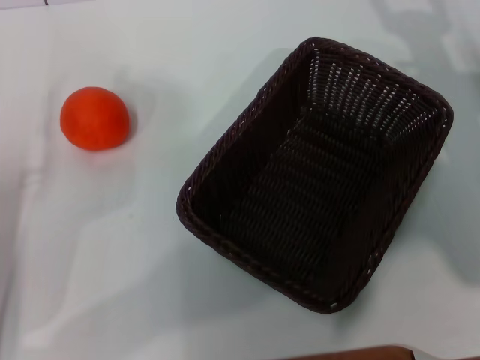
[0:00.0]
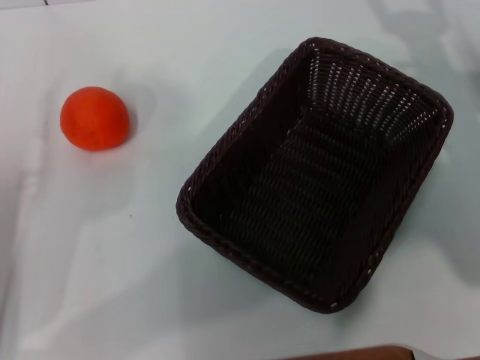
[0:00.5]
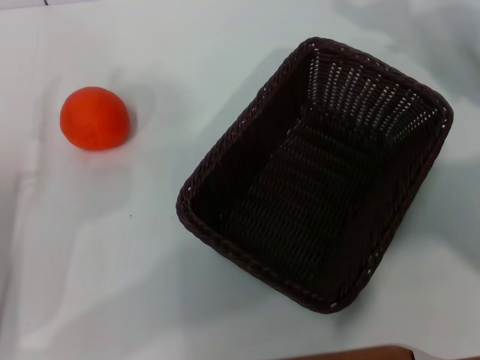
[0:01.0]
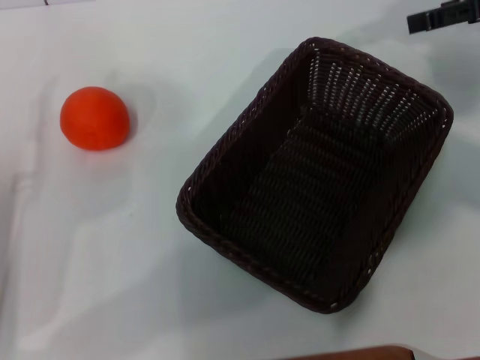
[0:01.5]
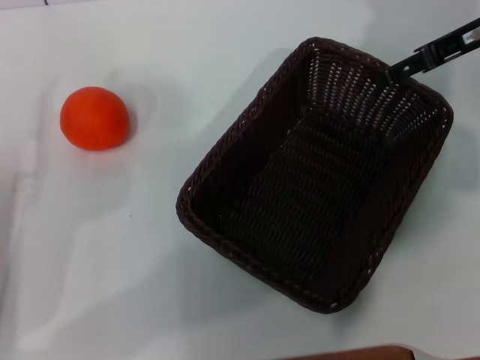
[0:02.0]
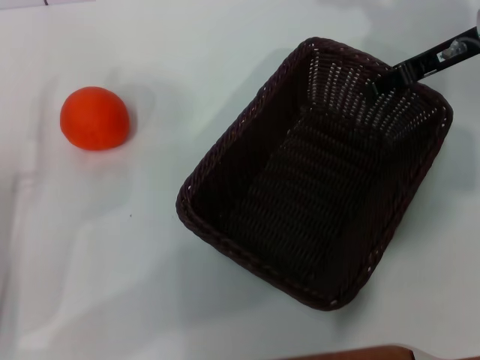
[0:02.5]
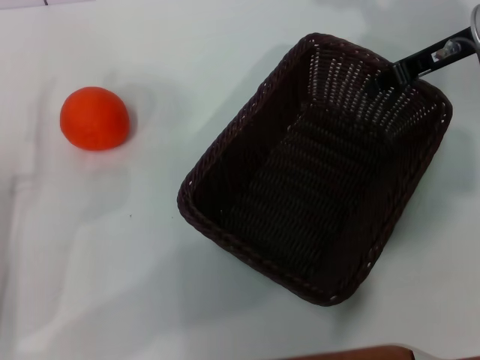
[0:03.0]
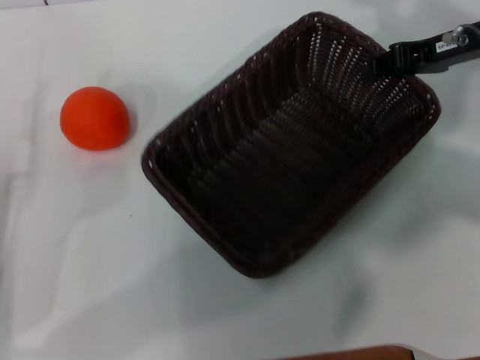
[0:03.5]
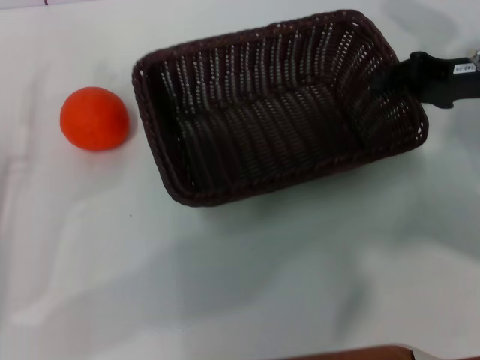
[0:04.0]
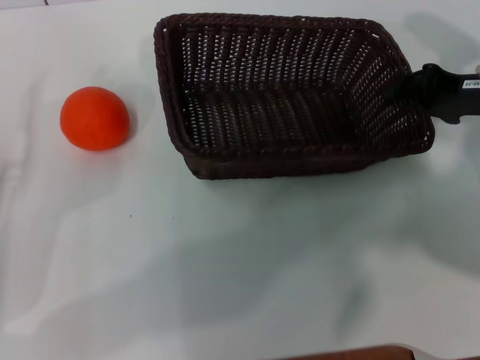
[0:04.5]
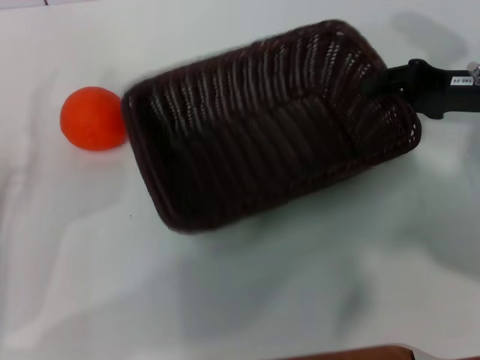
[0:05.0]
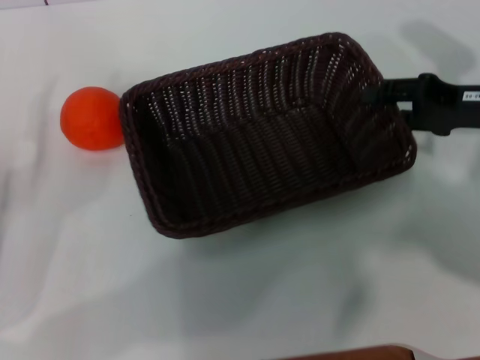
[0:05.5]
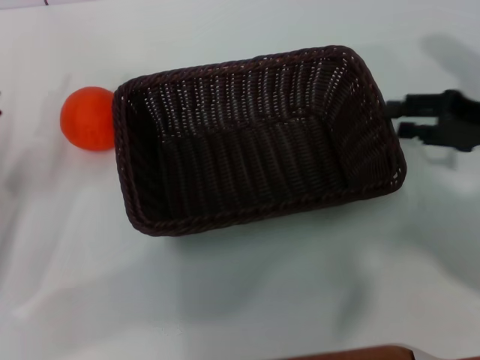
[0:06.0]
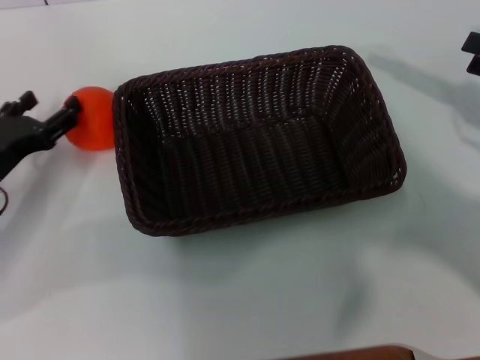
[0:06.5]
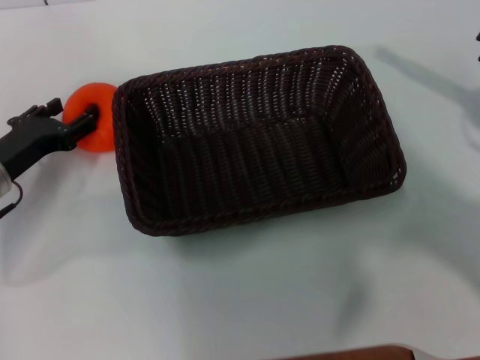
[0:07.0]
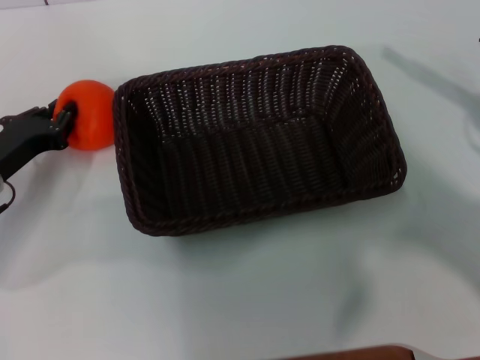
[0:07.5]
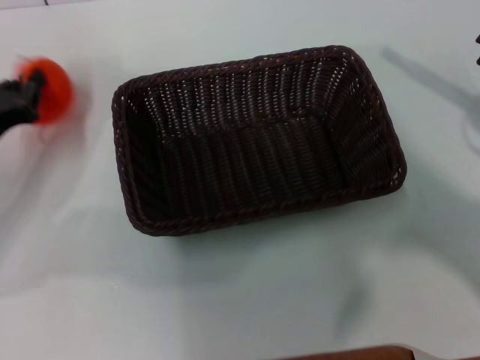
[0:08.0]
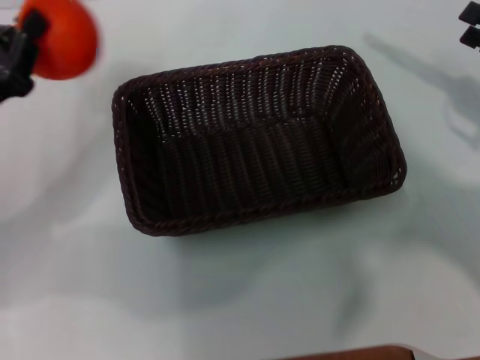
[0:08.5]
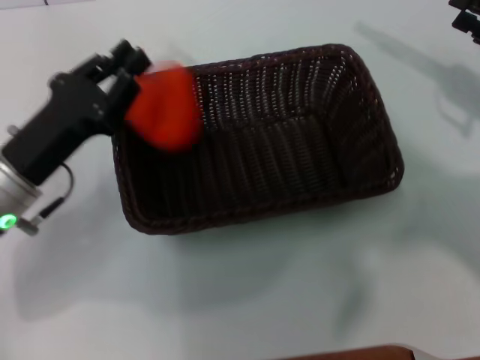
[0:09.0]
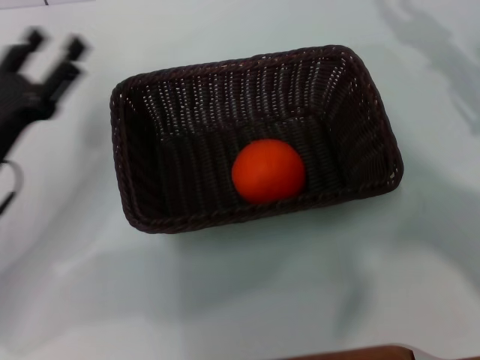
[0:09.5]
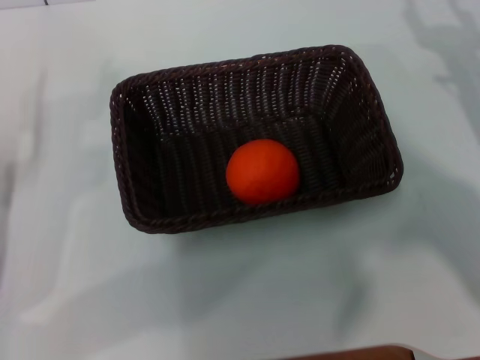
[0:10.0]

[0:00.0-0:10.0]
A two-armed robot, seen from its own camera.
Task of the whole recording: the right gripper pick up the black basket and place it horizontally in the middle of the table, the left gripper pick up the orange and place it into the black basket.
Step, 0:00.0 to 0:03.5: Pick up the dark basket with the right gripper.
Step, 0:04.0 to 0:06.0: Place the dark basket in the center of view with the right gripper.
Step, 0:06.5 to 0:08.0: Pick up the orange with the left gripper.
Step, 0:08.5 to 0:09.0: Place the orange into the dark basket with the left gripper.
0:00.0 to 0:02.0: The right gripper travels upward and forward by approximately 15 cm.
0:02.0 to 0:04.0: The right gripper heads downward, covering some 5 cm, and closes up.
0:04.0 to 0:06.0: The right gripper travels backward by some 5 cm, and opens its fingers.
0:06.0 to 0:08.0: The left gripper travels forward by some 5 cm, and closes its fingers. Meanwhile the right gripper is displaced to the right by approximately 5 cm.
0:08.0 to 0:10.0: The right gripper changes place by about 5 cm. Meanwhile the left gripper heads backward, covering roughly 5 cm, travels to the right and back again, roughly 10 cm each way, and opens.

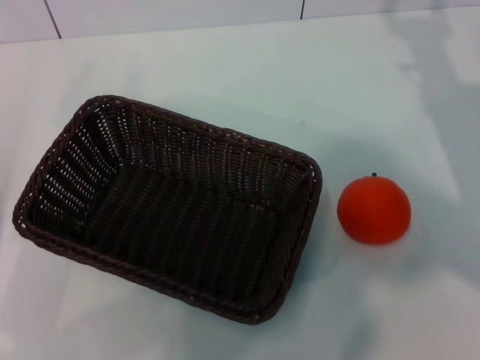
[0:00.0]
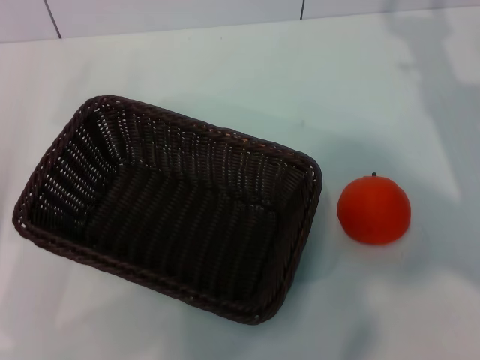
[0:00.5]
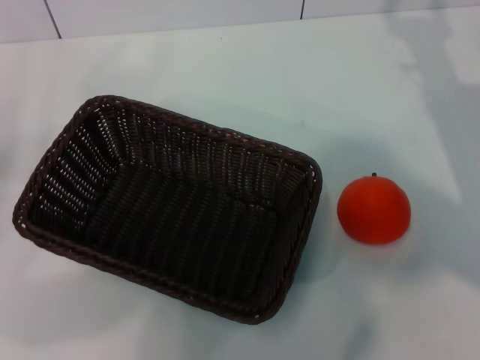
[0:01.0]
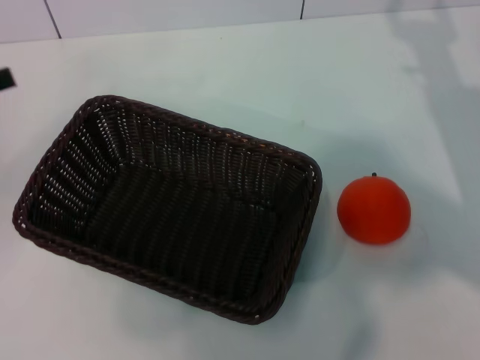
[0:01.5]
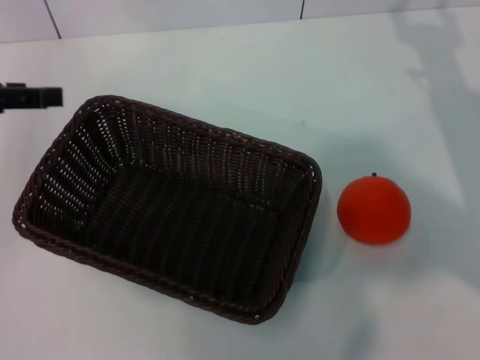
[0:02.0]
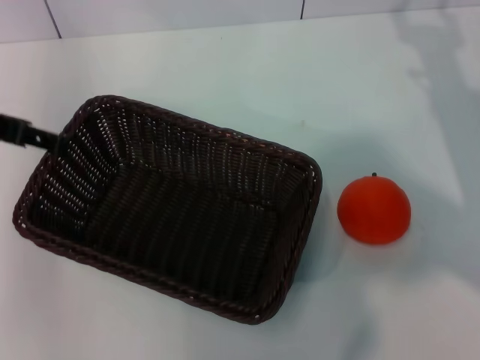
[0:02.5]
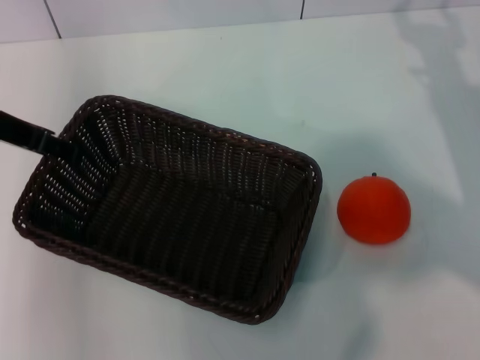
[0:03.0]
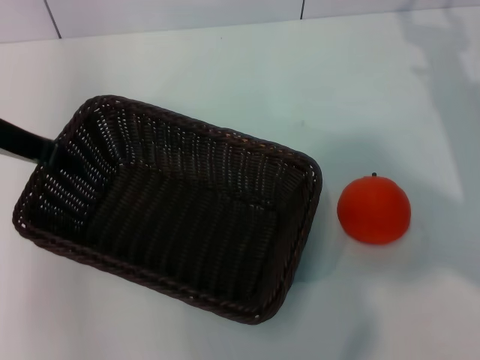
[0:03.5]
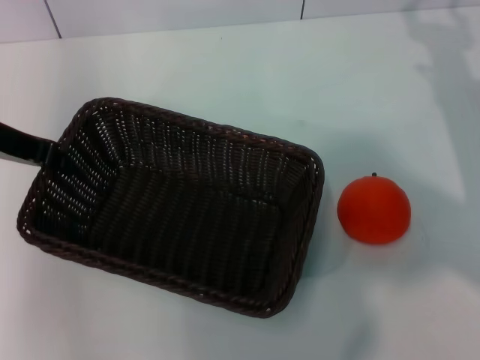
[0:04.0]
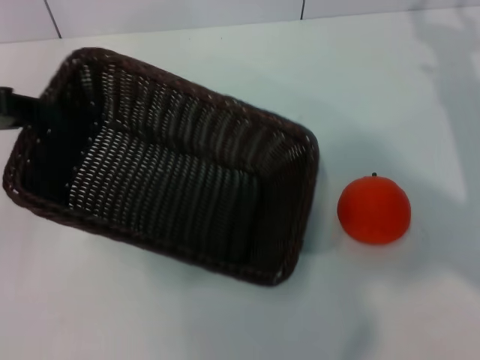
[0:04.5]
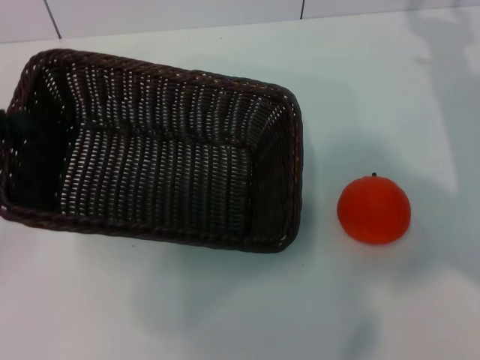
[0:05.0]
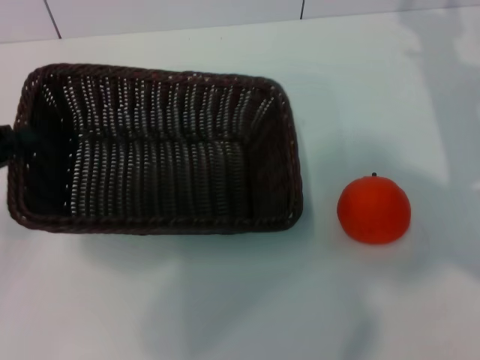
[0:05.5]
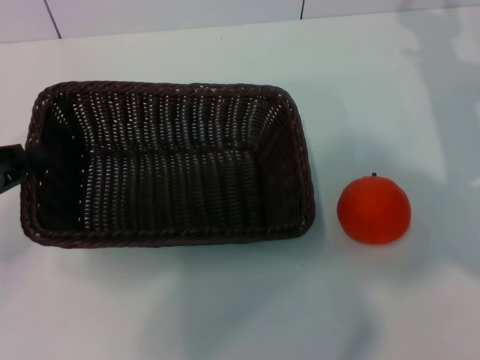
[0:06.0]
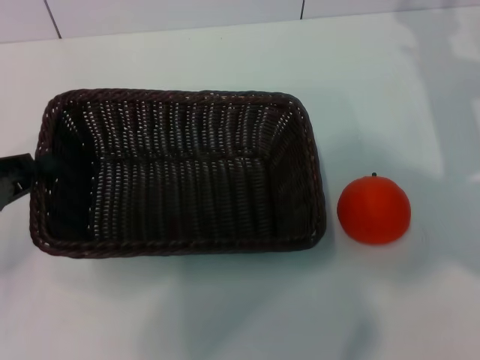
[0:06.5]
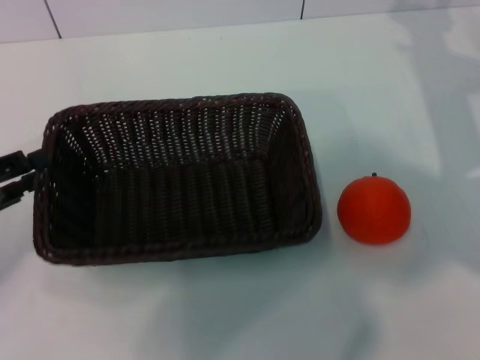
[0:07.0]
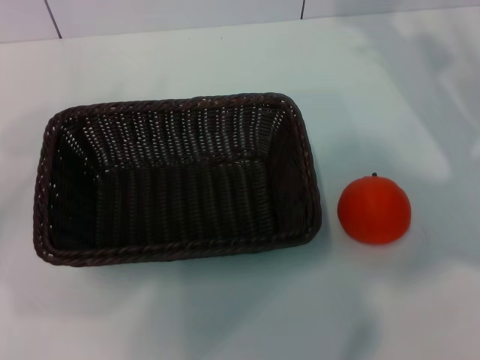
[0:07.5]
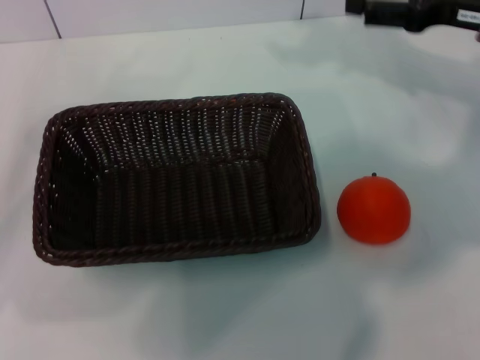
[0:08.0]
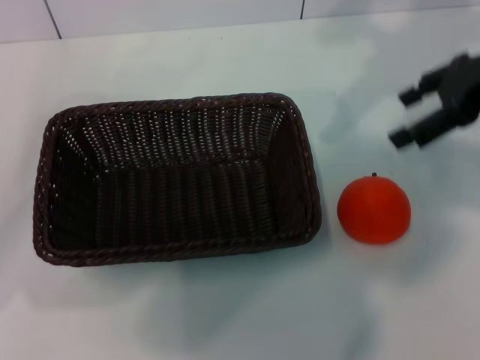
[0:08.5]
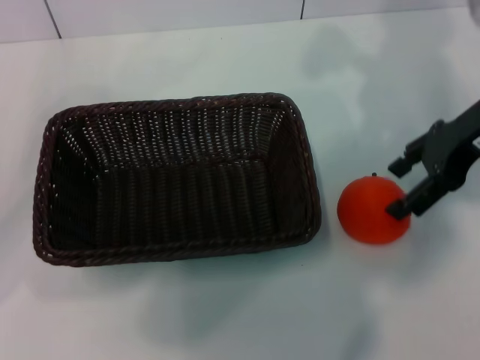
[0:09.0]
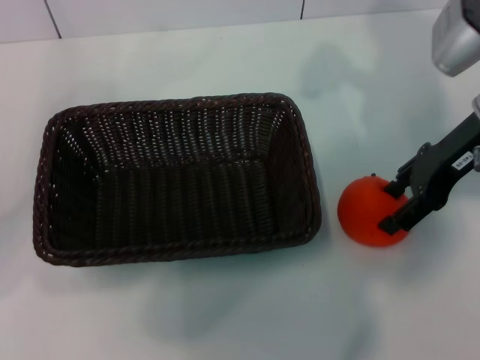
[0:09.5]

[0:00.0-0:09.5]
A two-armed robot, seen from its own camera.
Task of the whole recording: the left gripper pick up the black basket and place it horizontally in the middle of the table, the right gripper pick up the orange and place it into the black basket.
Step, 0:00.0 to 0:04.0: Pick up the dark basket with the left gripper.
Step, 0:04.5 to 0:06.5: Place the dark basket in the center of view with the left gripper.
0:00.0 to 0:02.0: The left gripper is displaced upward and forward by approximately 20 cm.
0:02.0 to 0:04.0: The left gripper heads to the right, covering some 5 cm, and closes.
0:04.0 to 0:05.5: The left gripper heads to the left, backward and downward, covering roughly 15 cm.
0:05.5 to 0:07.5: The left gripper opens its fingers.

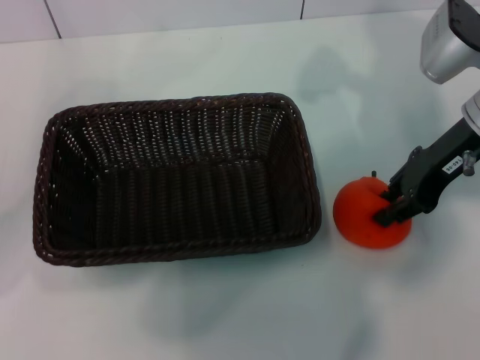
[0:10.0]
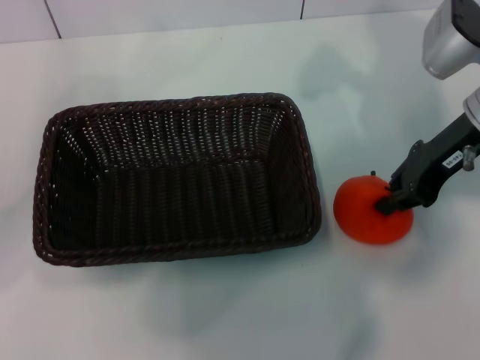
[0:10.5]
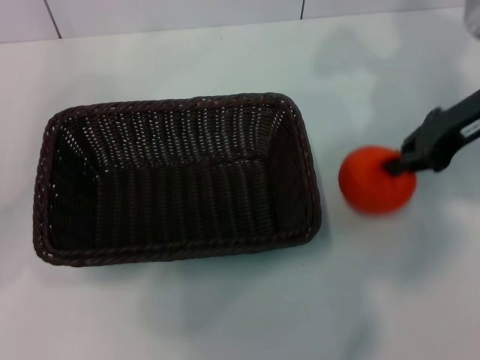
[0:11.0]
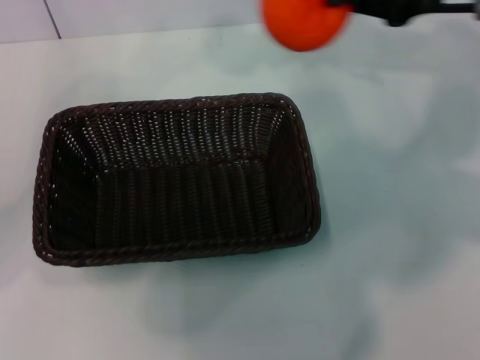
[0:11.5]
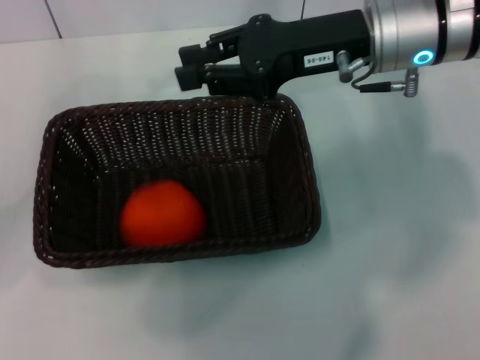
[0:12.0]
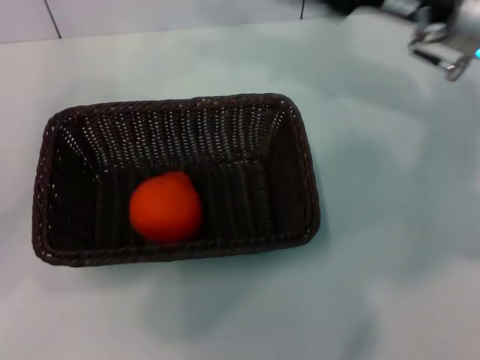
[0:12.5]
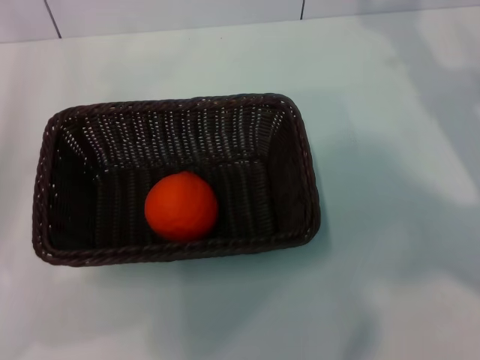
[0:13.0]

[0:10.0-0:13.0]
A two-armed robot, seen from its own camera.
Task of the whole recording: the left gripper pick up the black basket and place it horizontally in the middle of the table, the right gripper pick up the orange and place it into the black basket.
Step, 0:11.0 to 0:12.0: Place the orange into the dark basket with the right gripper.
0:10.0 to 0:11.5: The right gripper shifts some 5 cm upward, and closes.
0:11.5 to 0:13.0: The right gripper heads downward and to the right, covering approximately 10 cm, and opens its fingers.

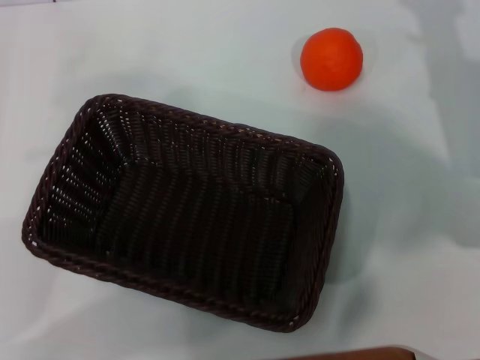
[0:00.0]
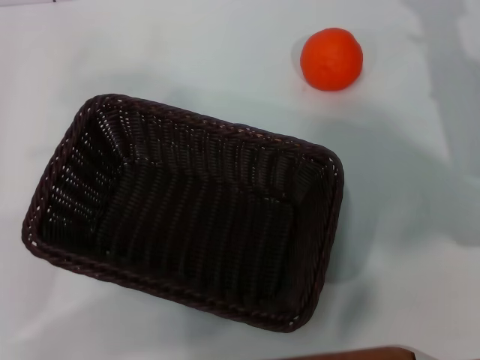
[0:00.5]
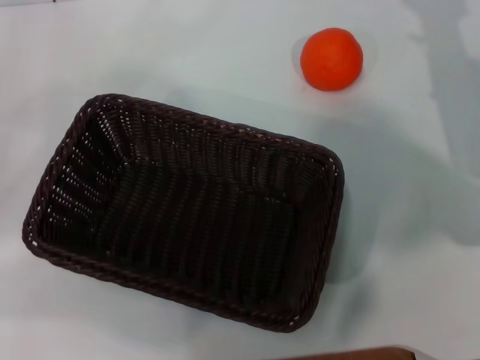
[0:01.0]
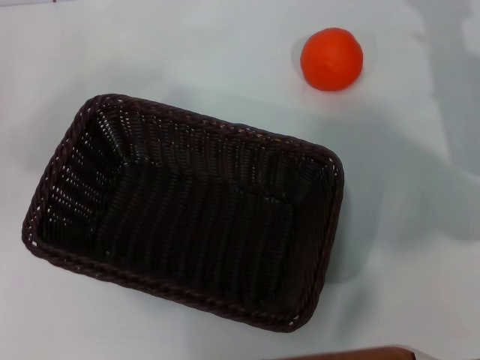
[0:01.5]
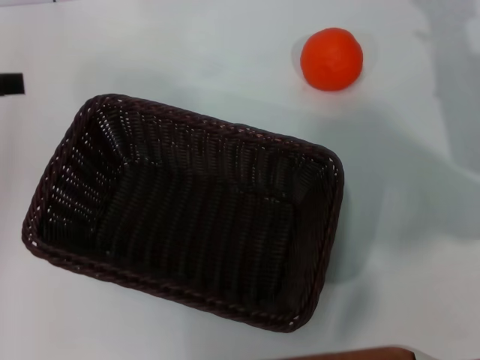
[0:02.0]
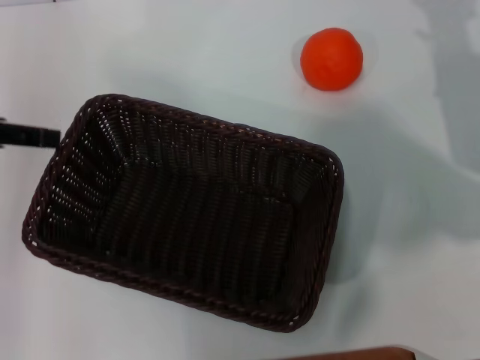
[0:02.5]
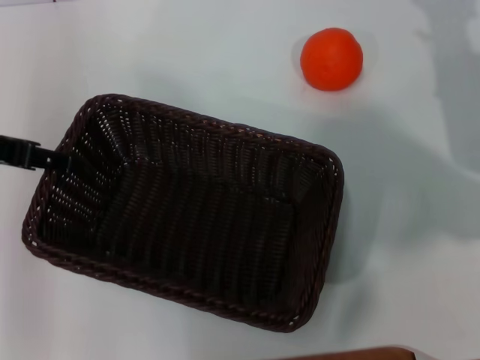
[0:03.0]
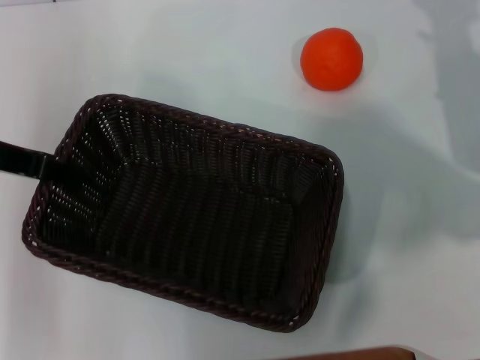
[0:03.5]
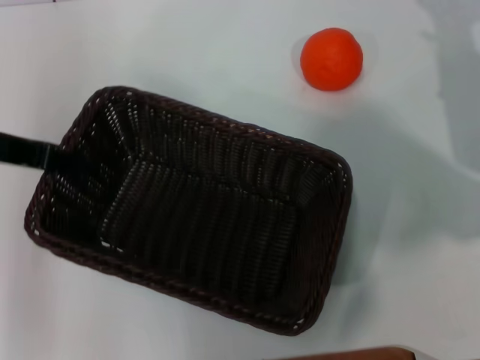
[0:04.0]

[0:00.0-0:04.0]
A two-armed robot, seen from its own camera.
Task of the whole recording: the left gripper pick up the black basket and place it horizontally in the middle of the table, the right gripper pick up the orange and place it into the black basket.
Step, 0:00.0 to 0:04.0: Pick up the dark basket with the left gripper.
0:00.0 to 0:02.0: The left gripper moves upward and forward, some 20 cm.
0:02.0 to 0:04.0: The left gripper shifts about 5 cm to the right, and closes its fingers.
